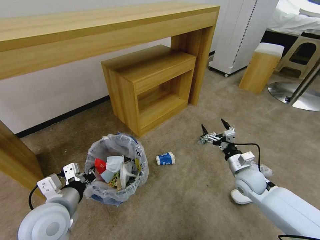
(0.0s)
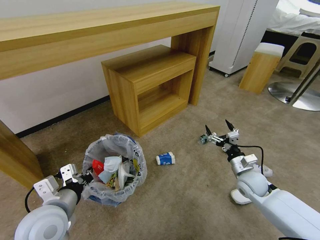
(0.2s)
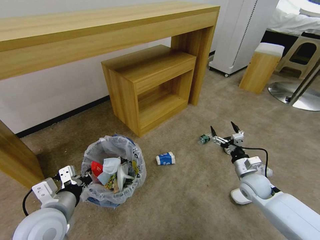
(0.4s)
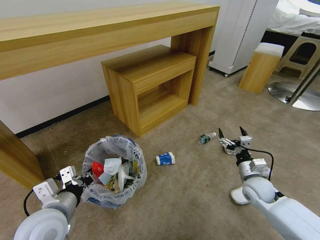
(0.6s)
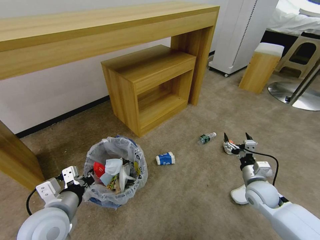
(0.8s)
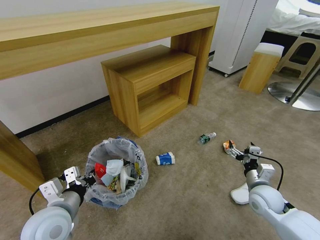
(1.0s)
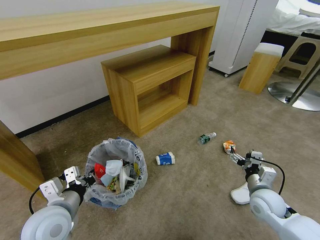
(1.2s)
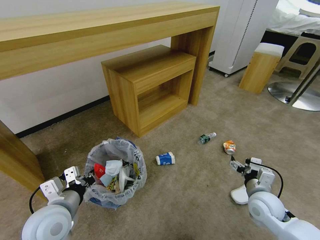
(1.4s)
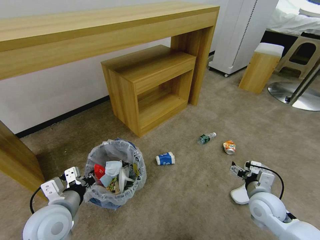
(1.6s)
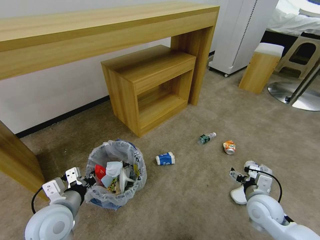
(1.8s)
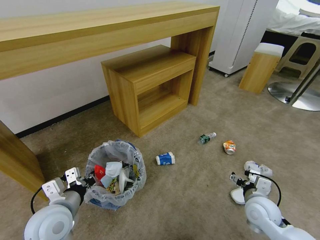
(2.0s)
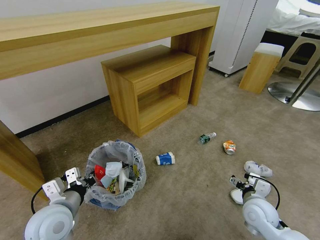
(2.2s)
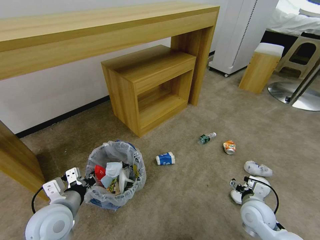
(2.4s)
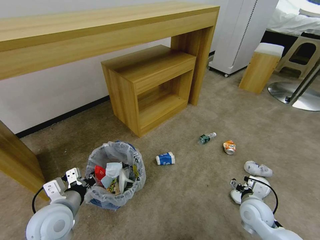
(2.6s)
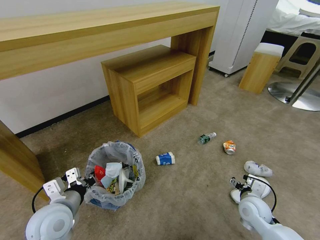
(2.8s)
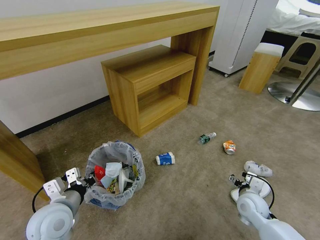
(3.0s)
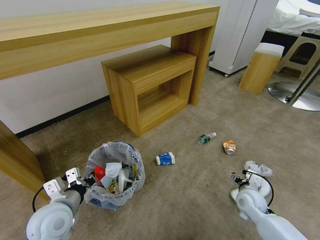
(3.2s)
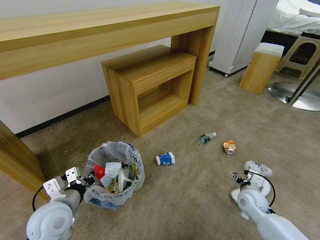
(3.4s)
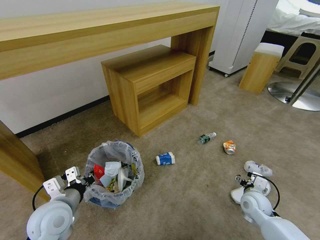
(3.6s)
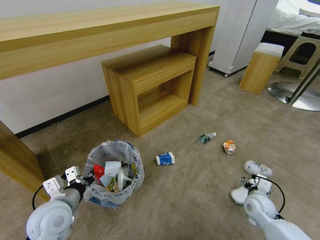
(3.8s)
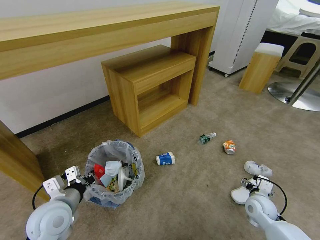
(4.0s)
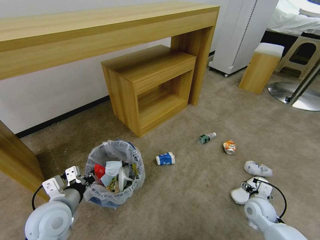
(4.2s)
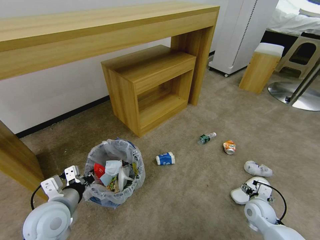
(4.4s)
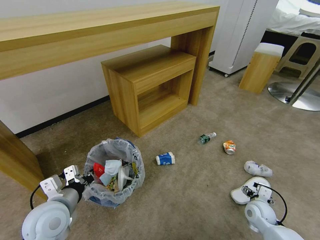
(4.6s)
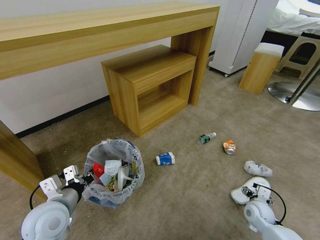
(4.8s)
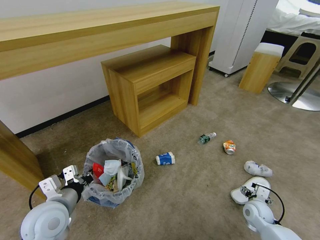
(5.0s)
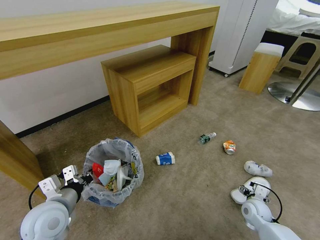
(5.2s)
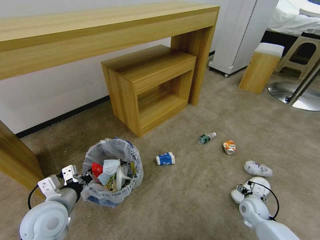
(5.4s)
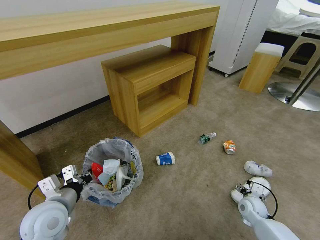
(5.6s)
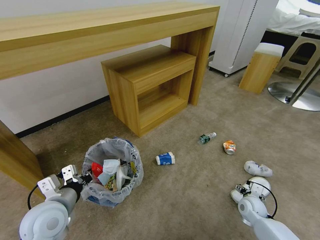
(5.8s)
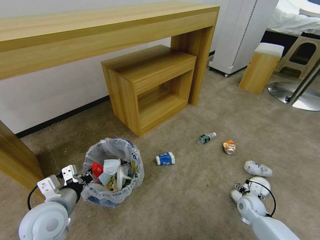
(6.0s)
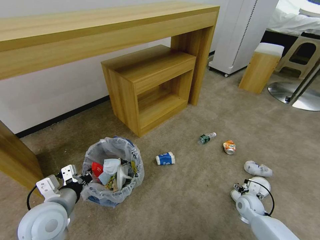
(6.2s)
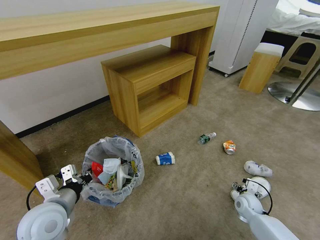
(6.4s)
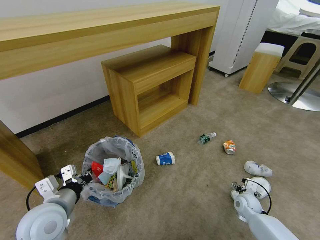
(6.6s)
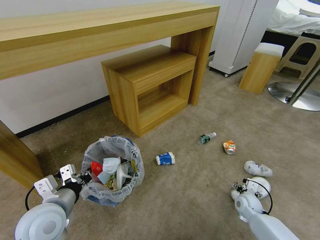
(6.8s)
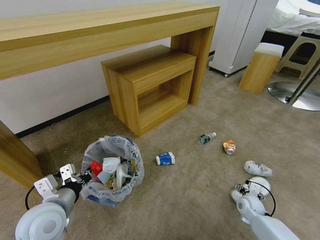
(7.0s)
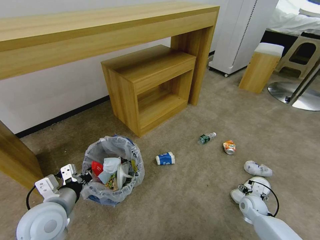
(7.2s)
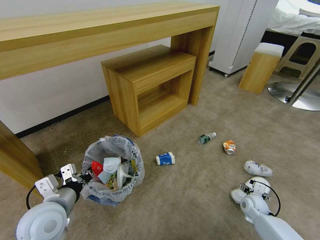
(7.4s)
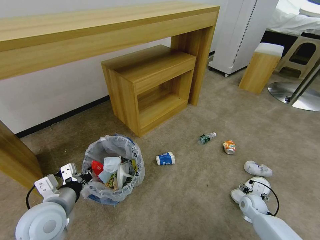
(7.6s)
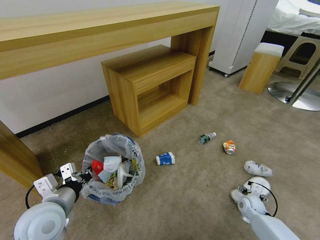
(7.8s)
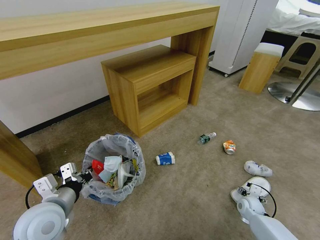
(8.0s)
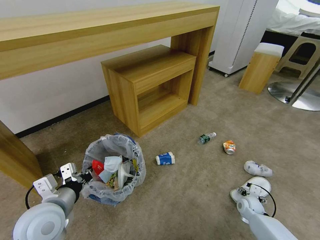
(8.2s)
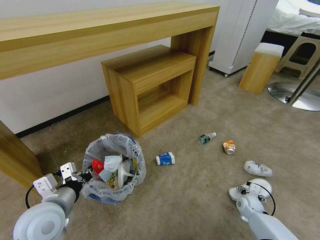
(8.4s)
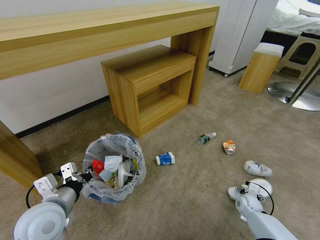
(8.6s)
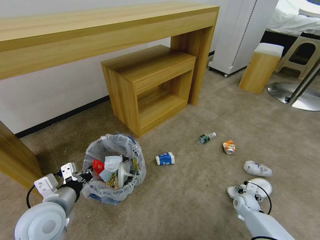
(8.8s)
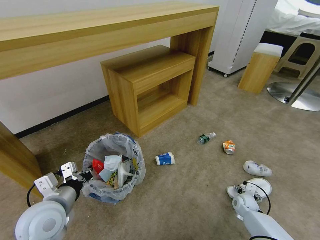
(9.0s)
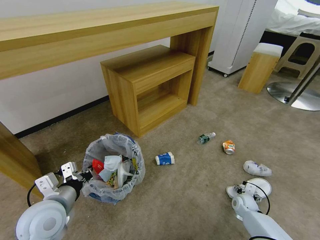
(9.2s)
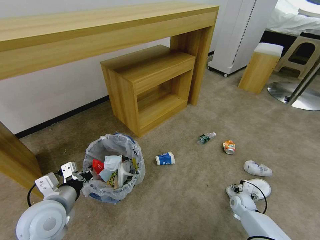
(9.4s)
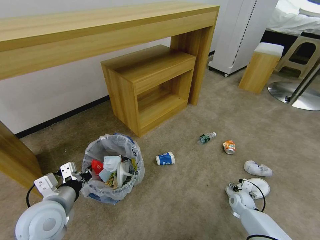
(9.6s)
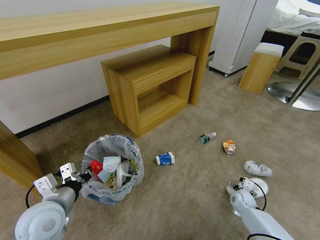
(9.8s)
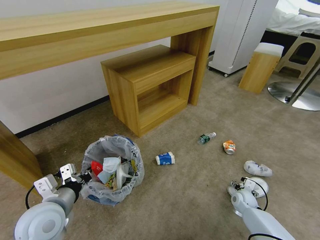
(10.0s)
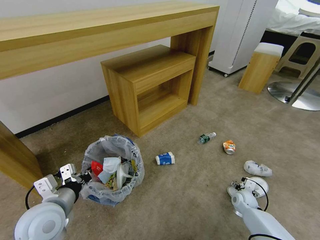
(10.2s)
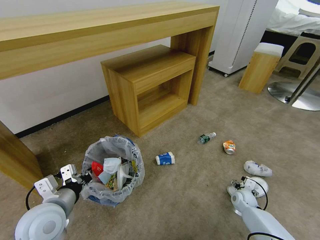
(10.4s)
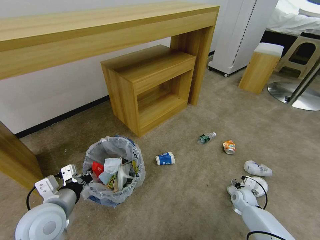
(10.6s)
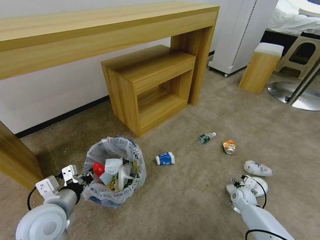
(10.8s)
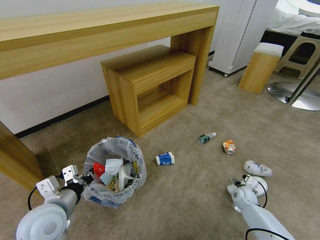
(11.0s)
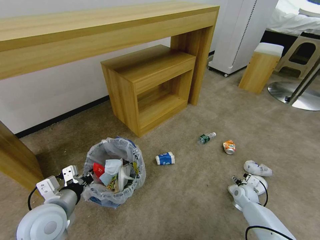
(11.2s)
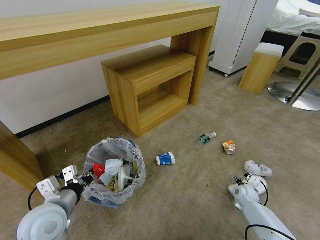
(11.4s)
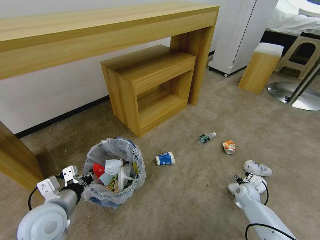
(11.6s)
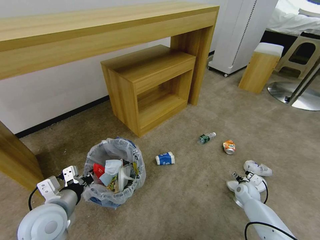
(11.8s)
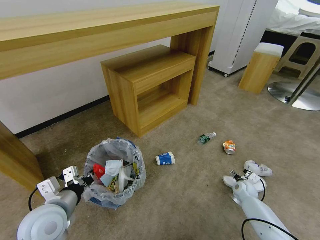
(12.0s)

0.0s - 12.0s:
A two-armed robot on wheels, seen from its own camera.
Task of the whole recording: Pick up the trash bin and place the garbage on the floor into it.
0.0s - 1.6s: The right gripper moves backward, approximately 10 cm.
1.6s - 3.0s: The right gripper is displaced downward by roughly 5 cm.
3.0s - 4.4s: The right gripper ends up about 5 cm from where it was.
4.4s - 6.0s: The right gripper ends up some 5 cm from where it was.
6.0s - 10.4s: The grippers stay close to where they were, moving slightly.
10.4s - 12.0s: The grippers move only a little.

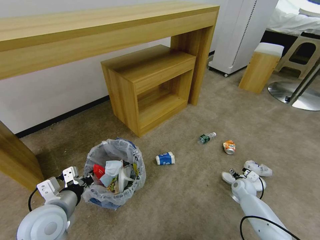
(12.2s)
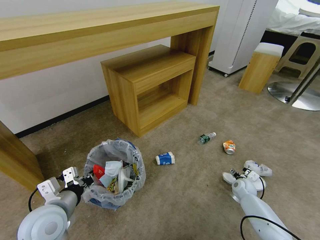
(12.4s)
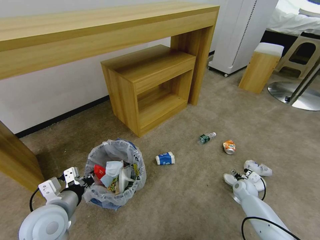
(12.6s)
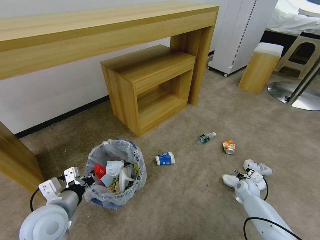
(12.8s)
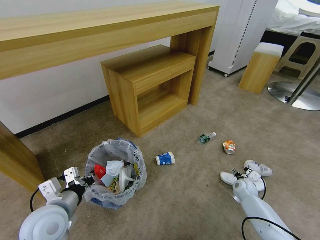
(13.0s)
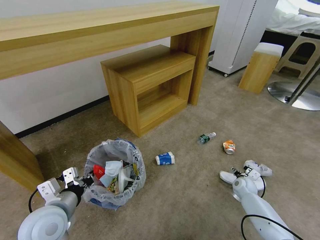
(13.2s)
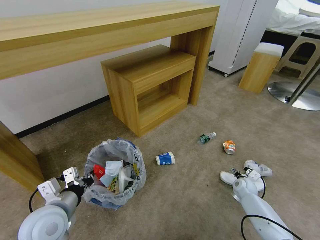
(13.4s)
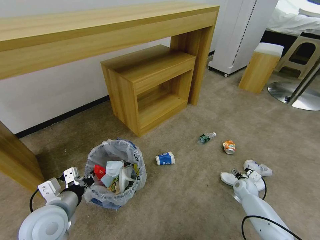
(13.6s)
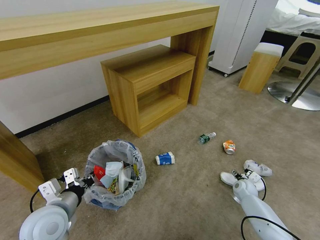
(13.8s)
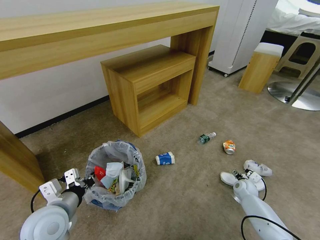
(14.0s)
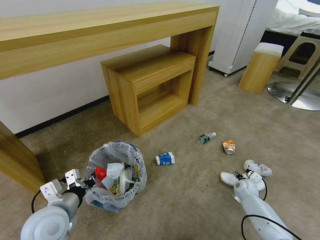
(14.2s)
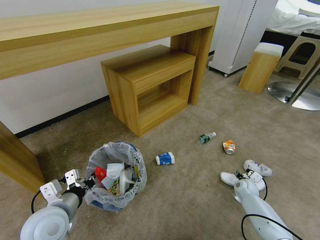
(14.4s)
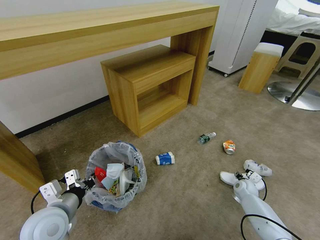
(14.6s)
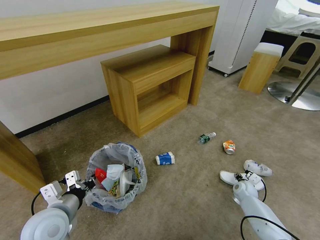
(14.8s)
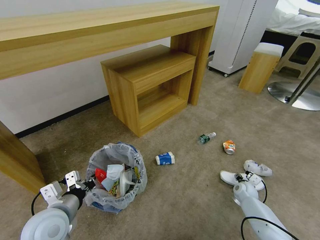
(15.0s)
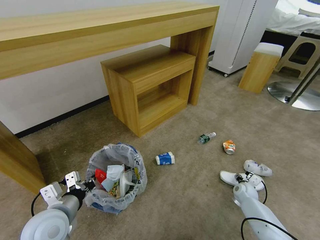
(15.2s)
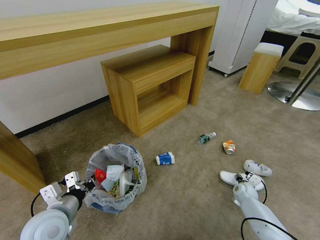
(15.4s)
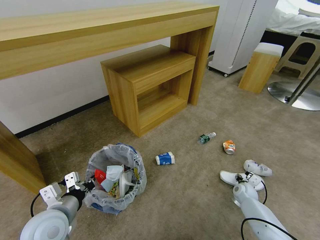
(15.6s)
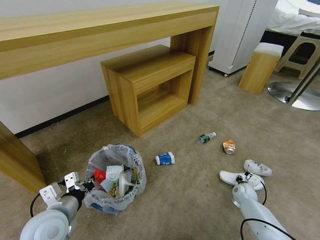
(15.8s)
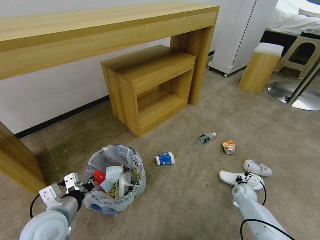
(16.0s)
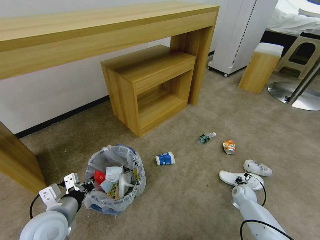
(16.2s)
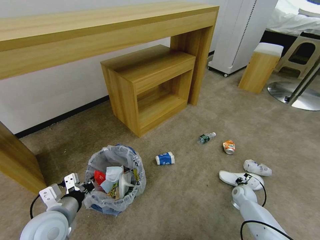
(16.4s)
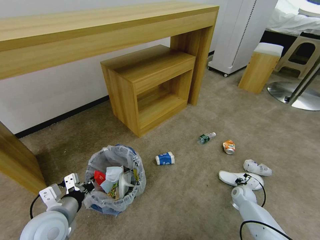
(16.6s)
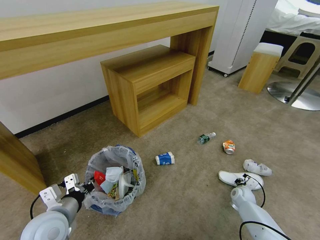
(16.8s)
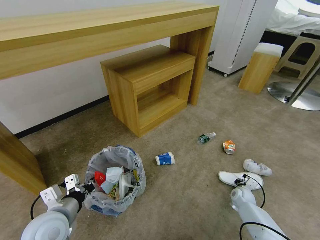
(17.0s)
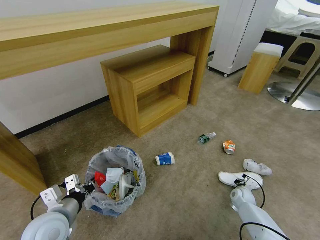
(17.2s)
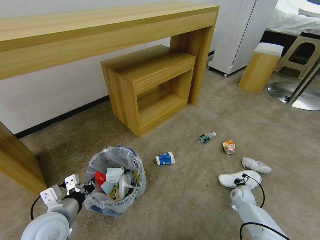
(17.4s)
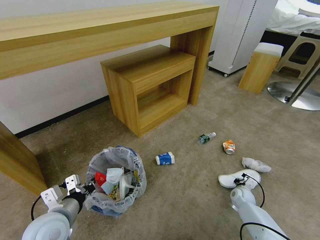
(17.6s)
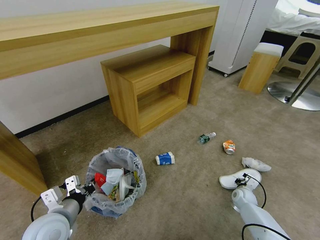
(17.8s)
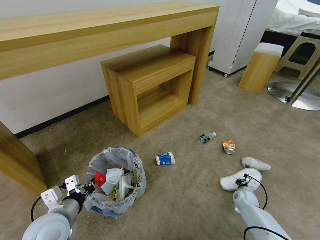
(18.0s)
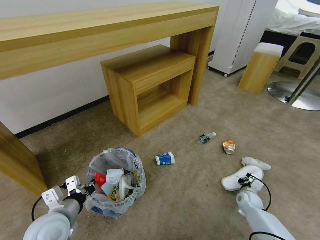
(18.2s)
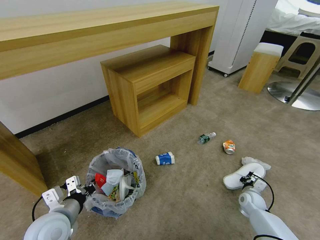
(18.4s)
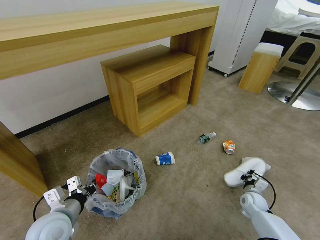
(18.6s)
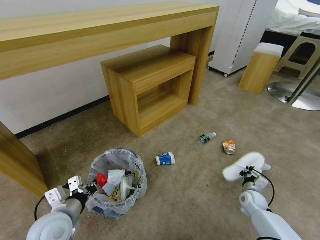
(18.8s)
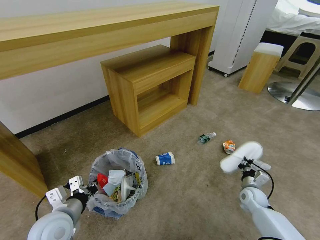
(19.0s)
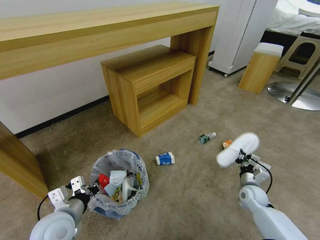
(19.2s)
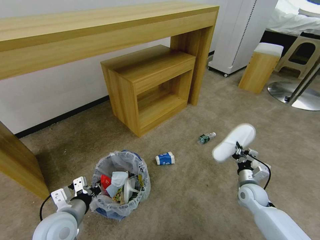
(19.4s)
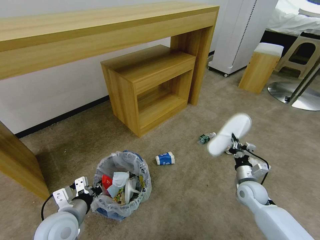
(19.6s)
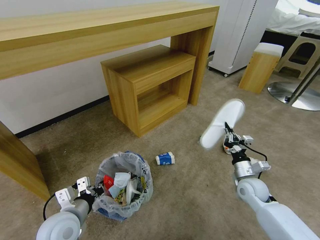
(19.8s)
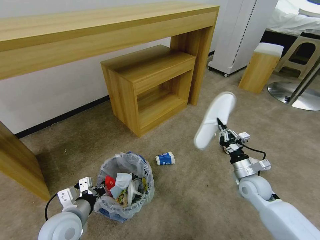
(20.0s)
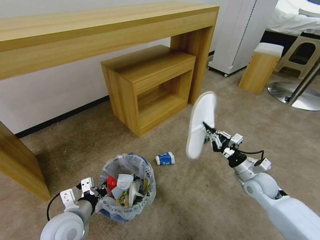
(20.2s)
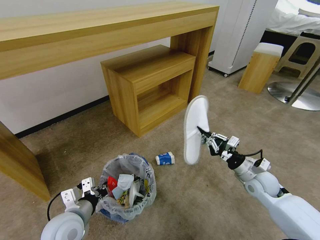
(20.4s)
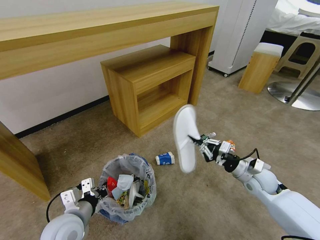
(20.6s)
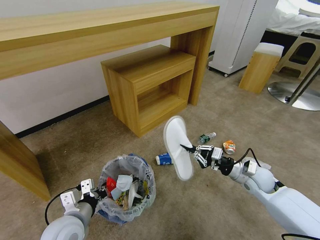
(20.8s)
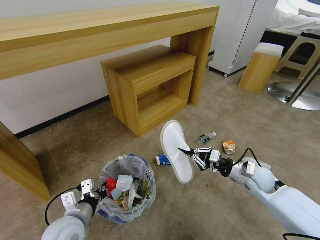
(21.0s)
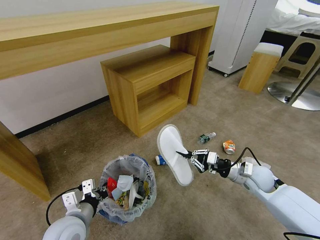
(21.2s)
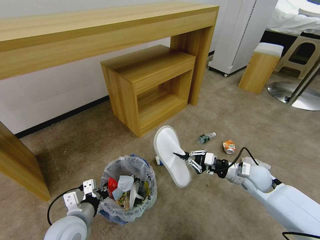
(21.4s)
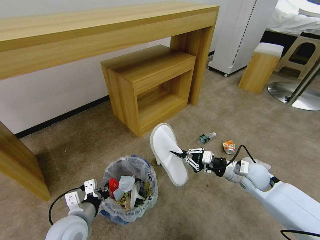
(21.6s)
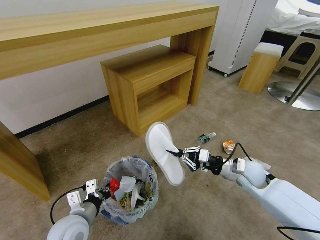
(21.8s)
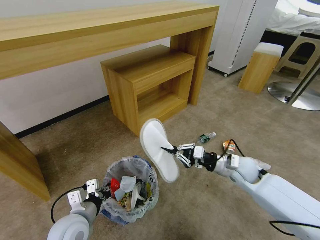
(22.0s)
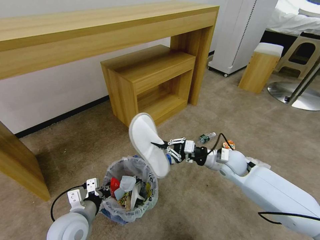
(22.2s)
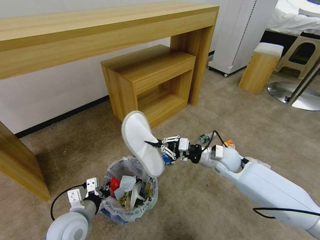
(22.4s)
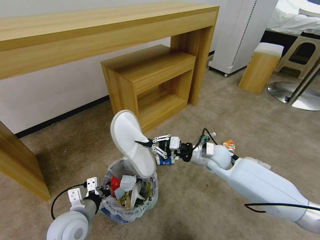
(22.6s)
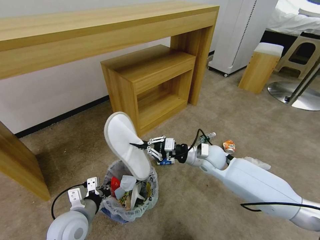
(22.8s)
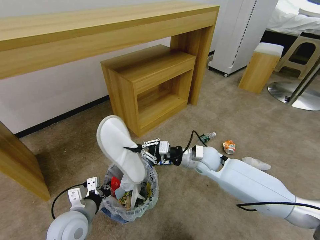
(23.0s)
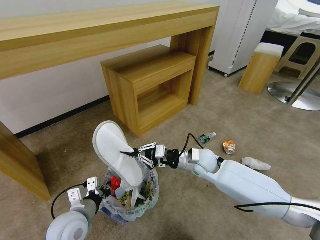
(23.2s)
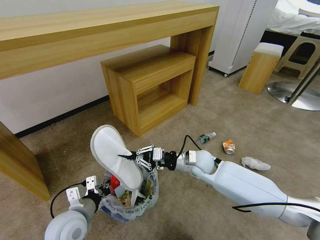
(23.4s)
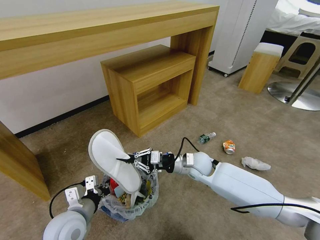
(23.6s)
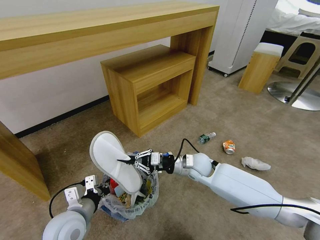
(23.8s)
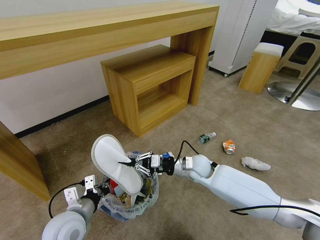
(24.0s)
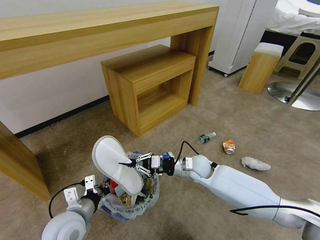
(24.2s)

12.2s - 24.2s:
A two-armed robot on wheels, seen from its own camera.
Task of the whole recording: Pick up the trash bin and place the garbage on the floor into it.
12.2s - 13.8s: Neither gripper changes place.
13.8s - 15.2s: The grippers move only a little.
15.2s - 16.6s: The right gripper closes up.
16.6s - 18.2s: The grippers make only small movements.
18.2s - 19.8s: The right gripper moves upward and to the left, approximately 15 cm.
19.8s - 21.2s: The right gripper goes approximately 5 cm upward.
21.2s - 22.6s: The right gripper heads to the left and forward, covering some 15 cm.
22.6s - 24.2s: The right gripper moves downward and to the left, some 10 cm.
